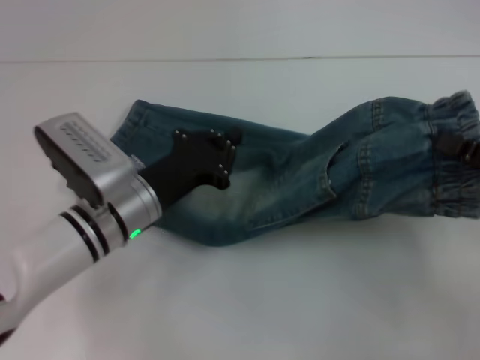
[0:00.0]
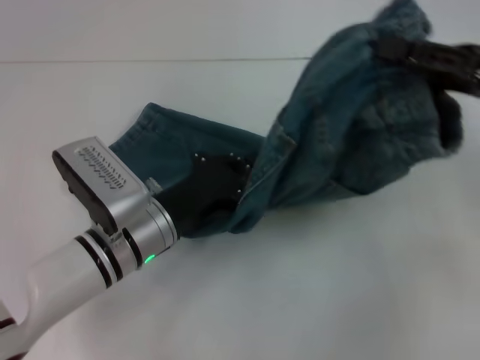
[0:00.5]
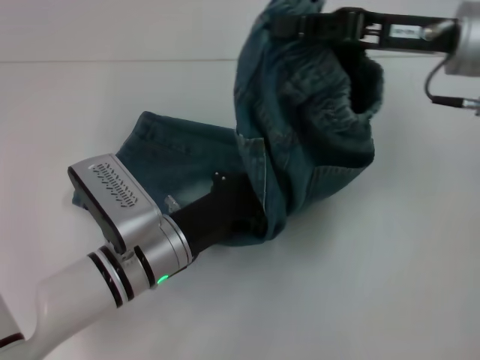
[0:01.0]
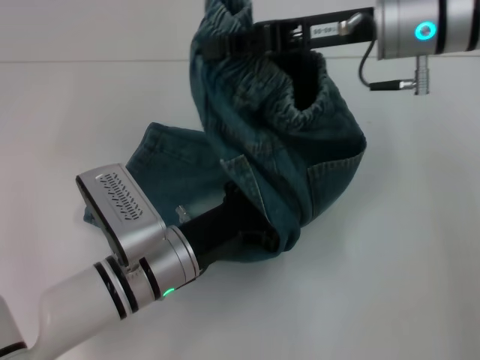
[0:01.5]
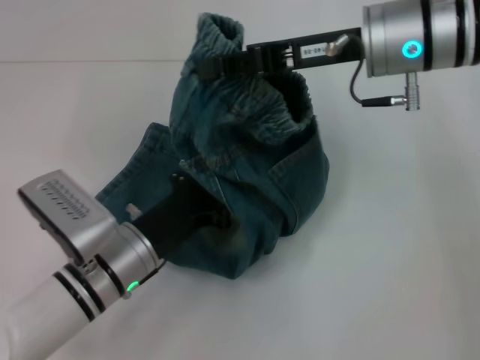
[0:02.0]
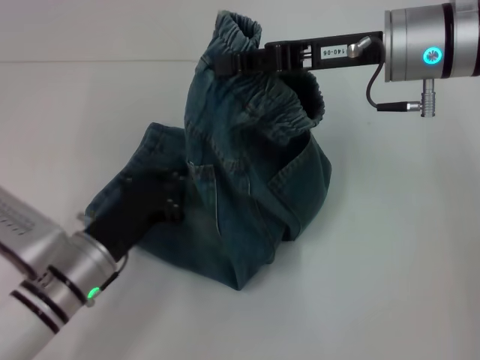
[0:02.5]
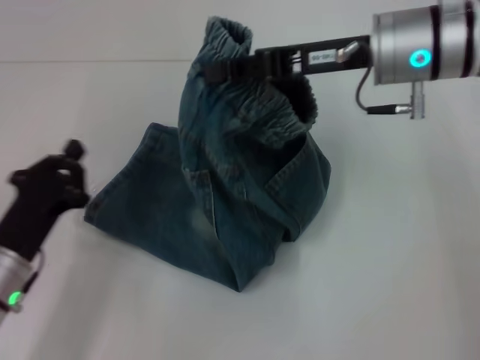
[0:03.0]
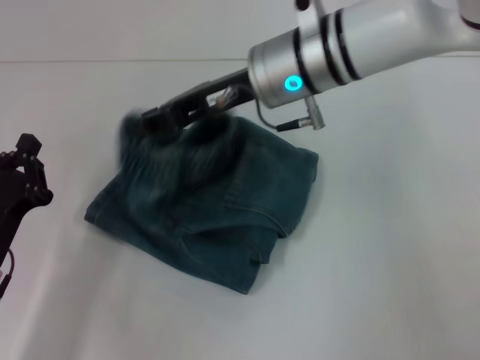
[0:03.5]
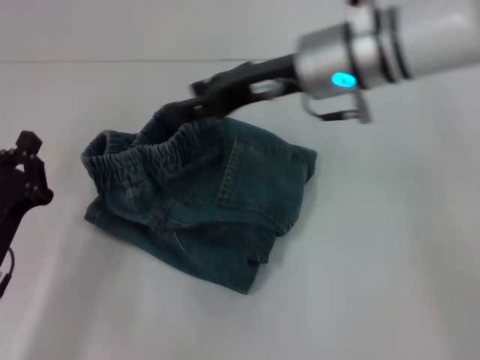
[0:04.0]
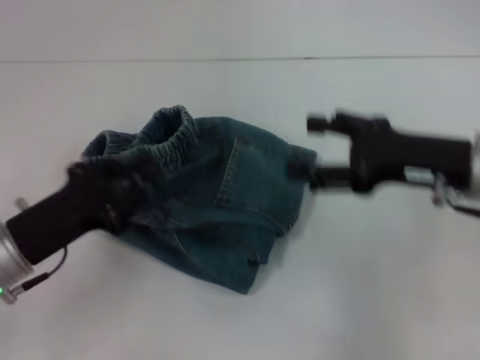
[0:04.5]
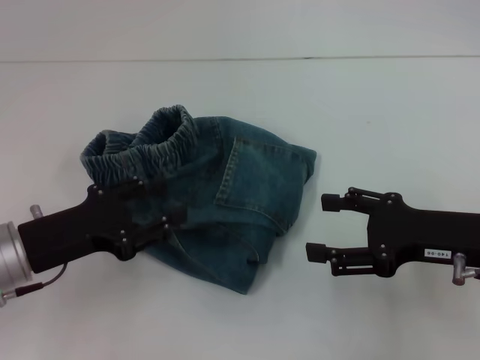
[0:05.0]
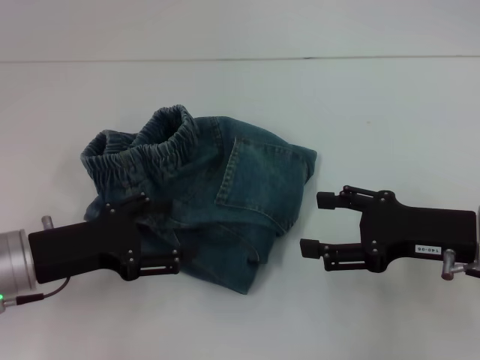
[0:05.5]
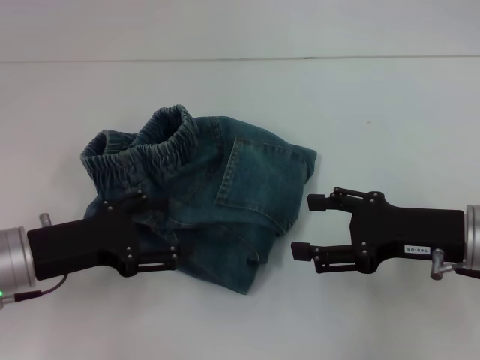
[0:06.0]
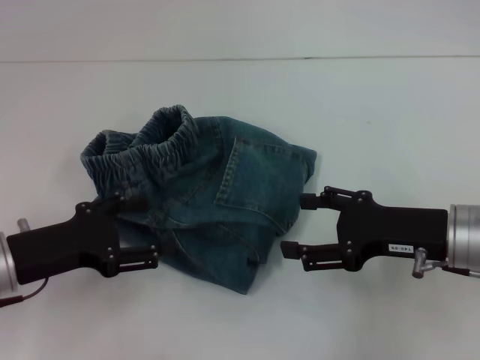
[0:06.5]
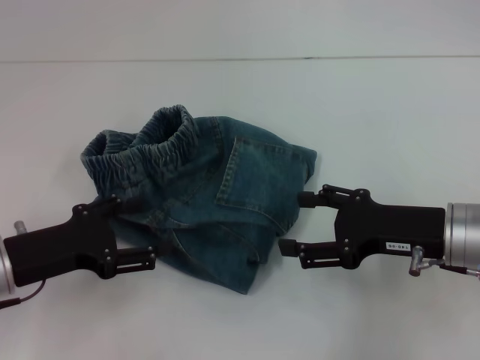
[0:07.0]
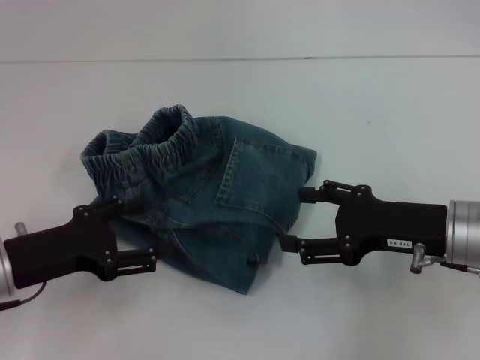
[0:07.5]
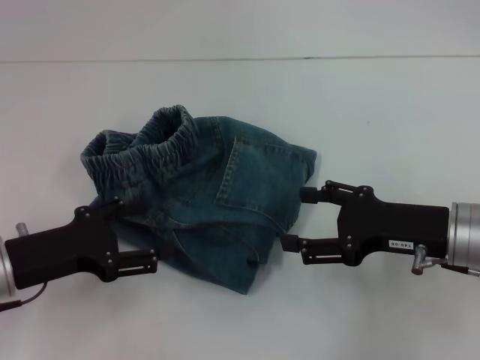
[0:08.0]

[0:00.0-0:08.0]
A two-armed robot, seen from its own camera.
Step, 0:00.0 to 0:01.5: Press the middle of the pants with your left hand.
Step, 0:02.0 to 0:03.5: Fold to the left with your right hand.
0:00.0 to 0:02.0: The left gripper is displaced backward by some 5 cm; the right gripper moves to the left, forward and upward, about 25 cm.
0:02.0 to 0:04.0: The left gripper shifts some 10 cm to the left; the right gripper opens.
0:04.0 to 0:06.0: The left gripper shifts by some 5 cm, and opens its fingers; the right gripper shifts some 20 cm to the right, backward and downward, and opens its fingers.
0:06.0 to 0:08.0: There are only small adjustments of the grippers.

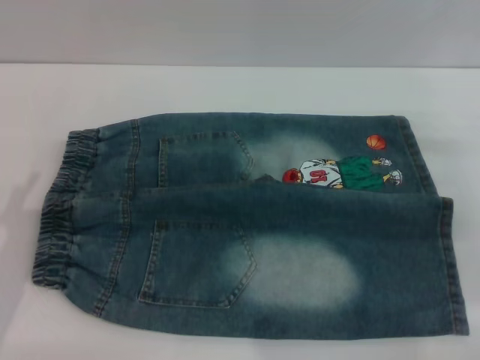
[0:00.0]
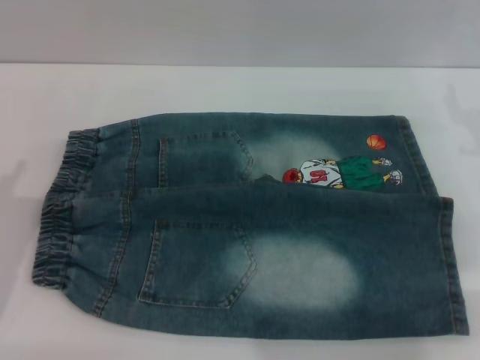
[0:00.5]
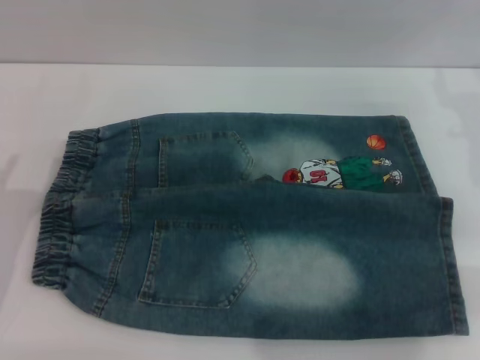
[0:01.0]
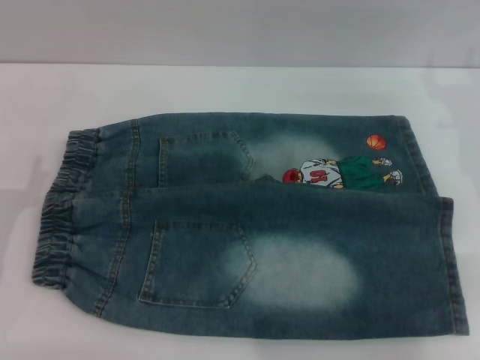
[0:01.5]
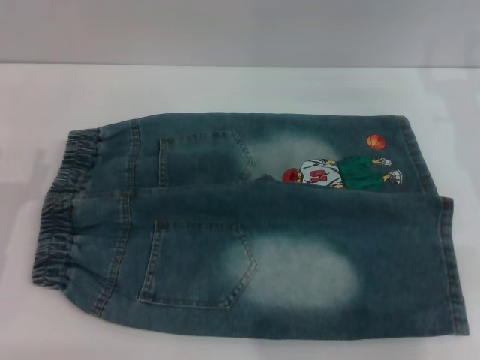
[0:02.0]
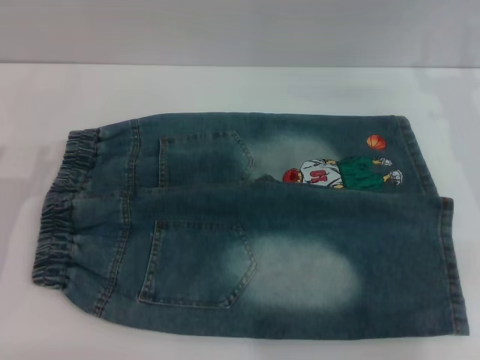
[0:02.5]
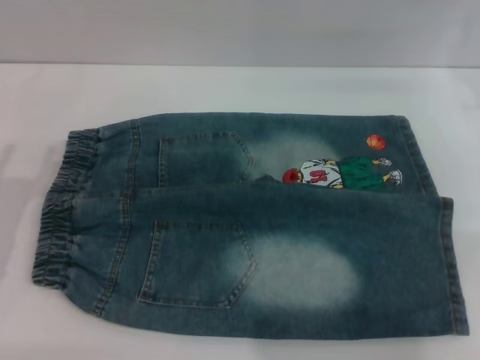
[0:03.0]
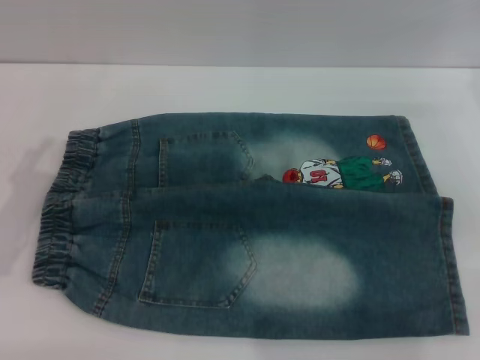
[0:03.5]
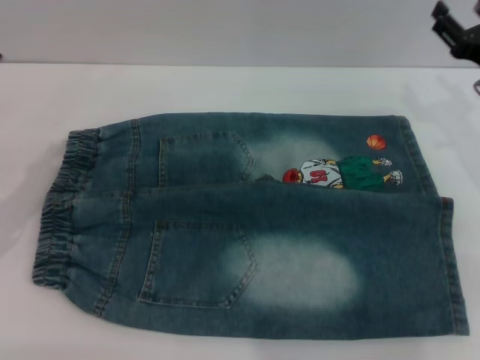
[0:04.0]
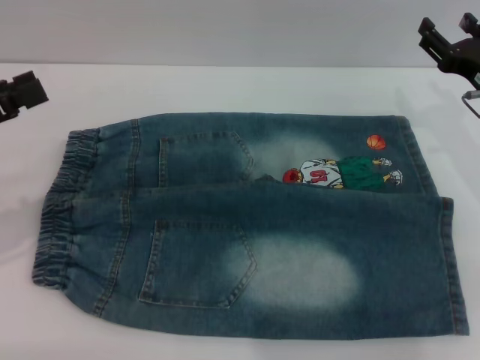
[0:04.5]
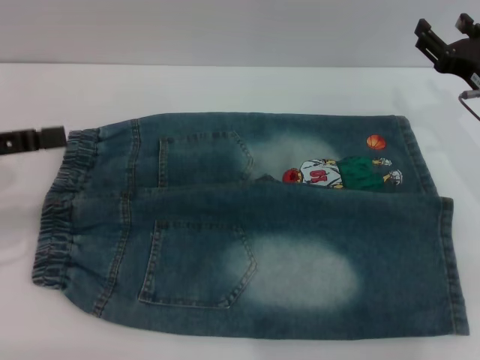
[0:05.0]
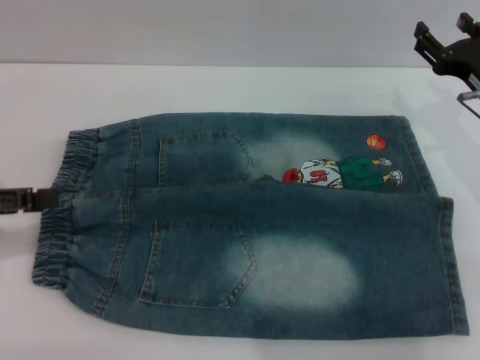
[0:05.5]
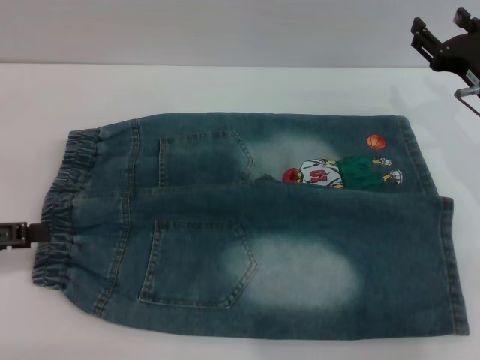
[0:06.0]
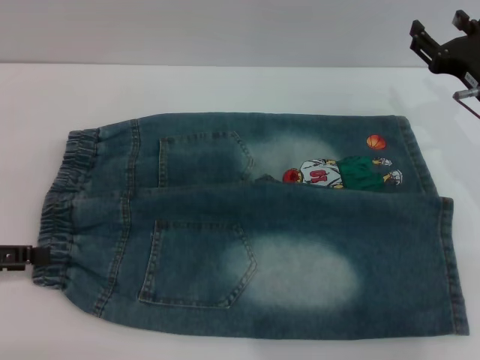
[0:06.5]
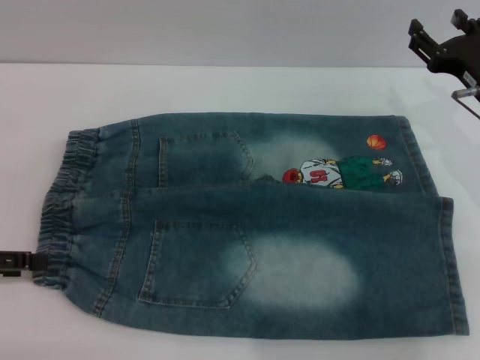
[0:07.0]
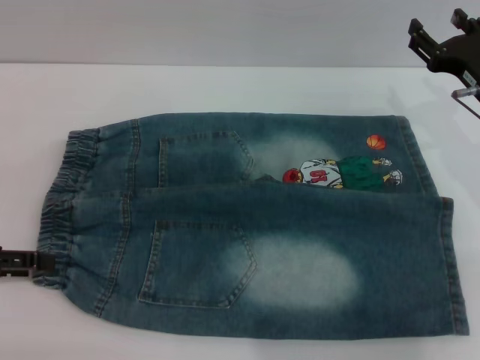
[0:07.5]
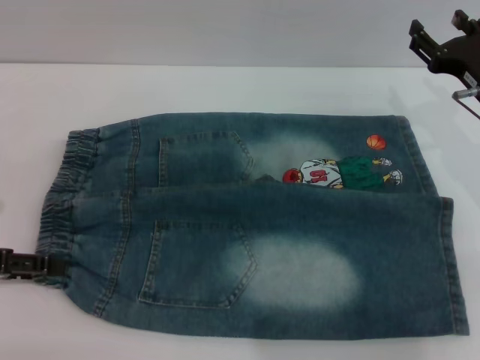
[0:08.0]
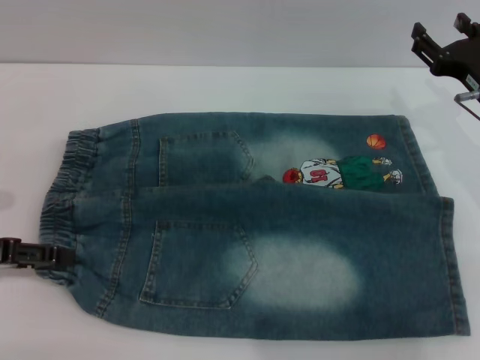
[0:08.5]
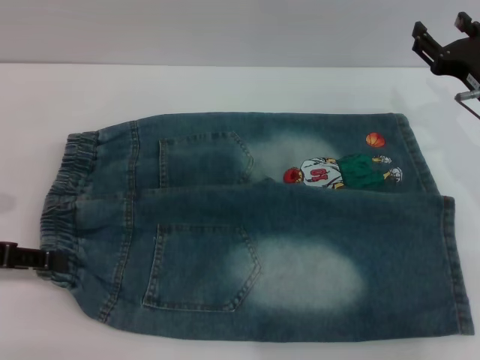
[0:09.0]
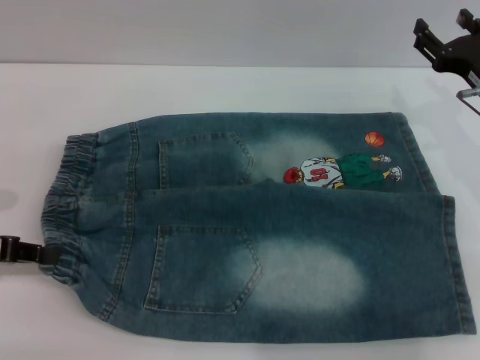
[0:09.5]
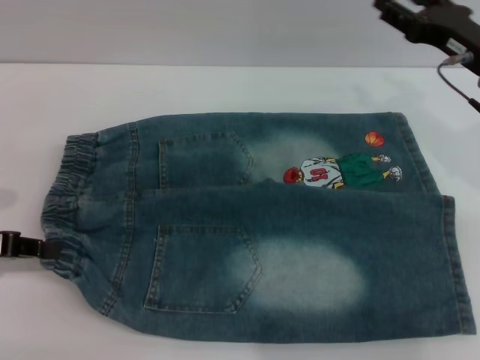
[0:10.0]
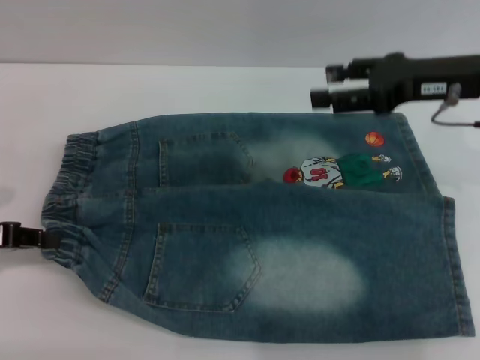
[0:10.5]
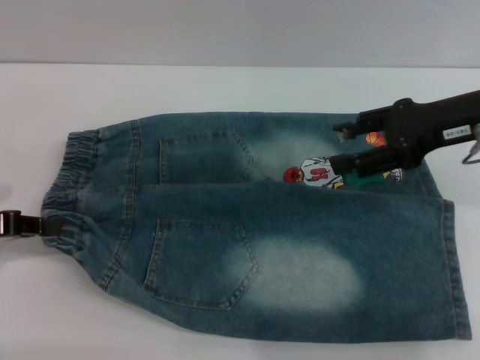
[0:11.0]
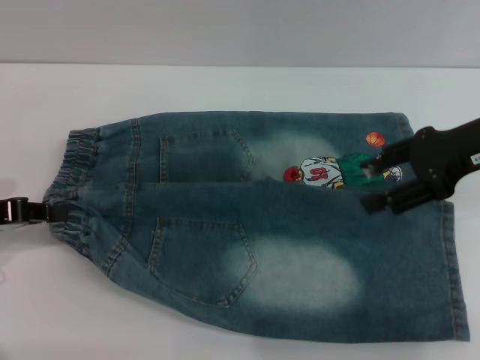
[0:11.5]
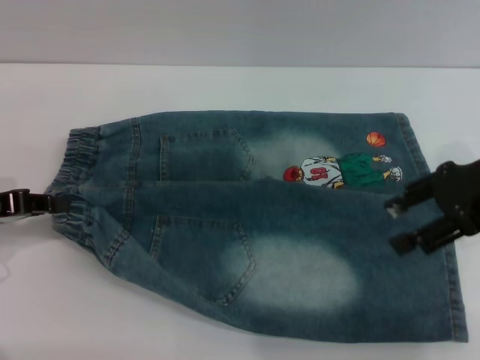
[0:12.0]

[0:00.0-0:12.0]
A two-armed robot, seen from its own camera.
0:00.0 to 0:02.0: The right gripper goes about 10 cm forward, to the left and upward.
0:06.0 to 0:08.0: The grippers make only small movements.
0:08.0 to 0:10.0: The left gripper closes.
0:10.0 to 0:12.0: The right gripper ends up about 5 cm from where it was.

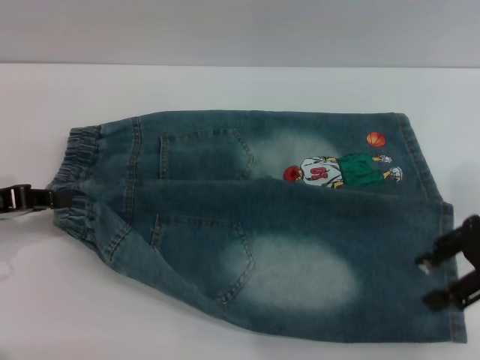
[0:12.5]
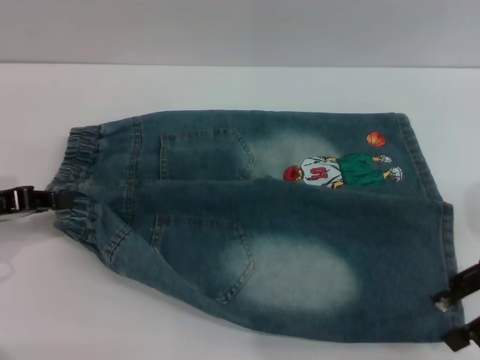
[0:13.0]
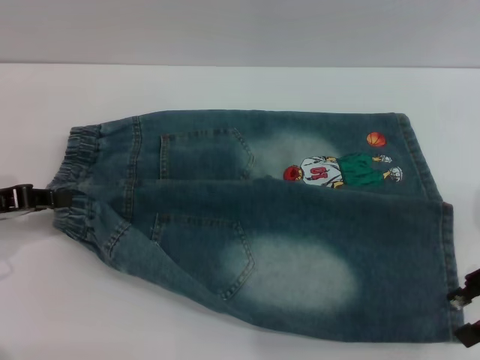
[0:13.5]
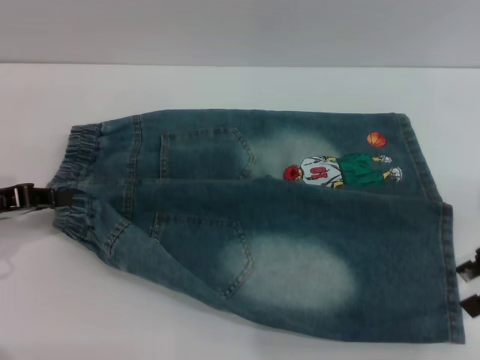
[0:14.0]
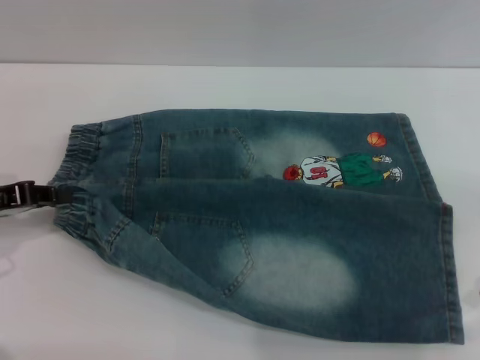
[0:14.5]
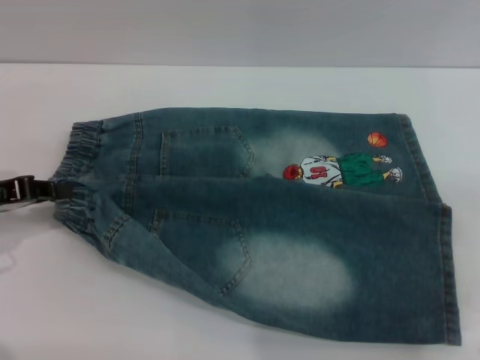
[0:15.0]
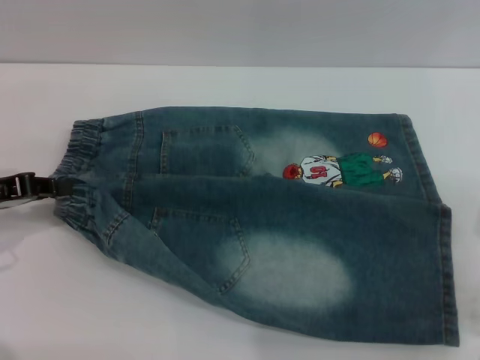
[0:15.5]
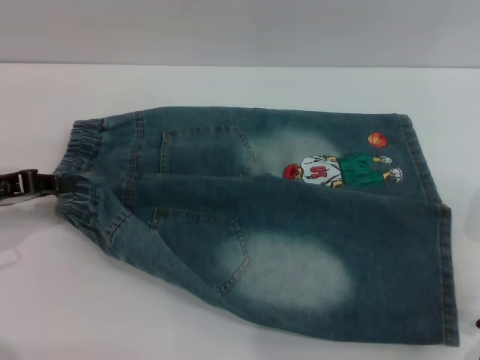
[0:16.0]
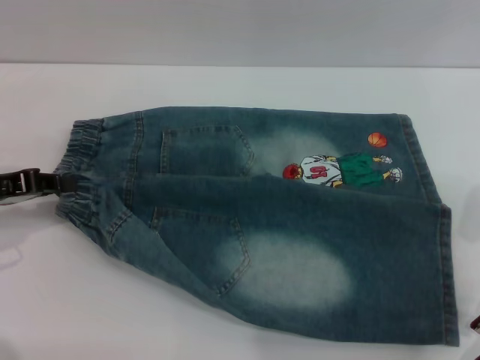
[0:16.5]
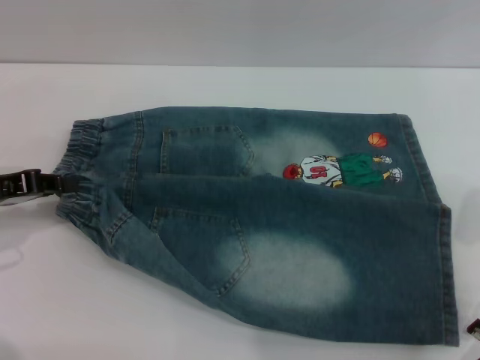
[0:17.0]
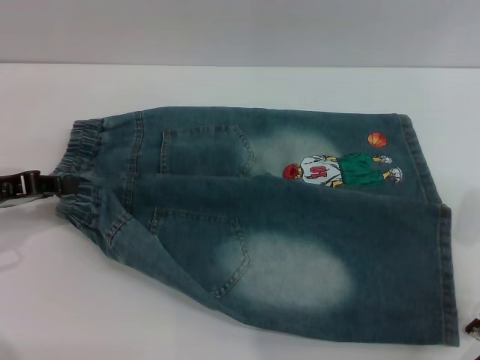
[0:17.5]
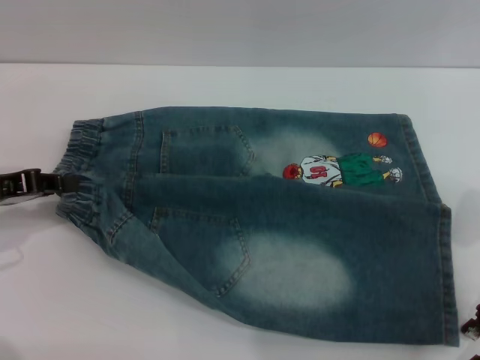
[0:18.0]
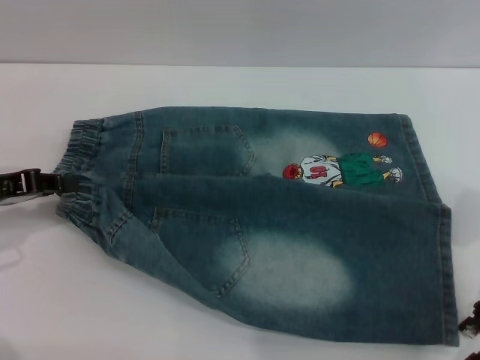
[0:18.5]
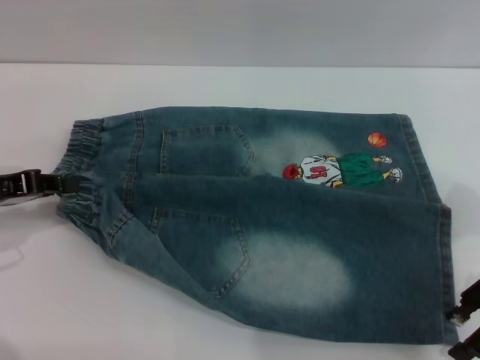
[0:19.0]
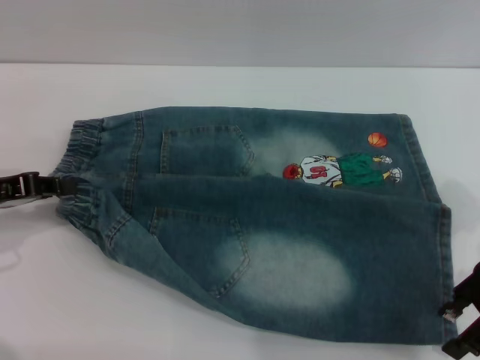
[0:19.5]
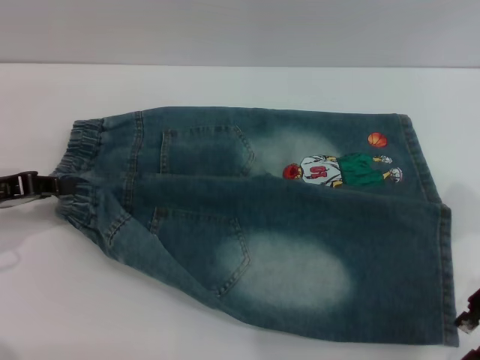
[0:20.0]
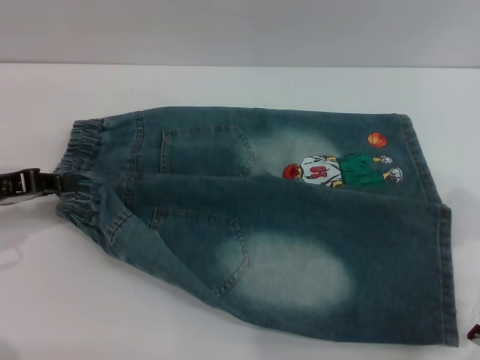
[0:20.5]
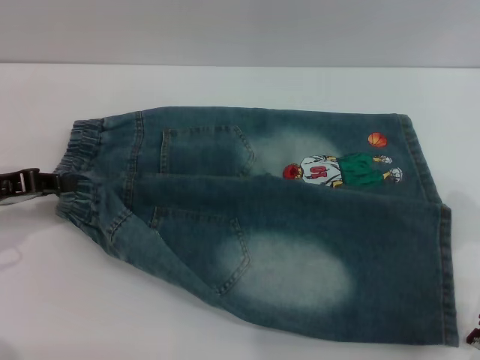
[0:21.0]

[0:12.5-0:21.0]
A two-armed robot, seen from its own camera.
0:12.5 to 0:14.5: The grippers move only a little.
0:14.5 to 0:19.0: The grippers stay close to where they were, moving slightly.
0:19.0 to 0:21.0: There are only small adjustments of the grippers.
